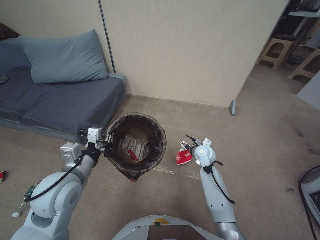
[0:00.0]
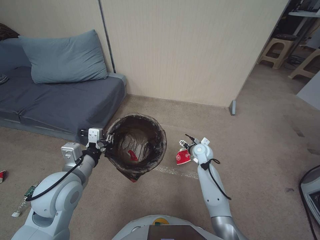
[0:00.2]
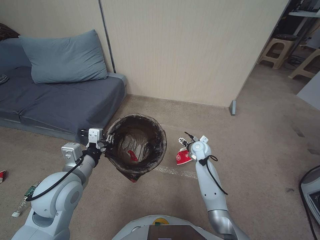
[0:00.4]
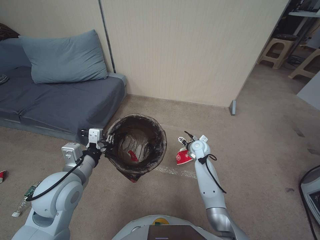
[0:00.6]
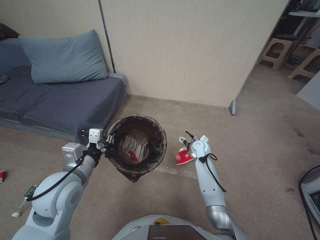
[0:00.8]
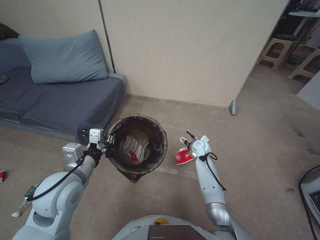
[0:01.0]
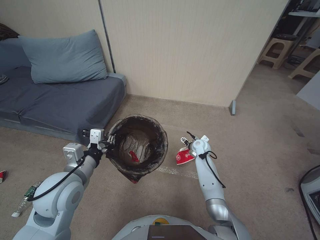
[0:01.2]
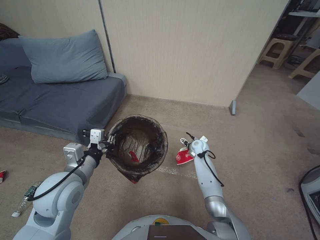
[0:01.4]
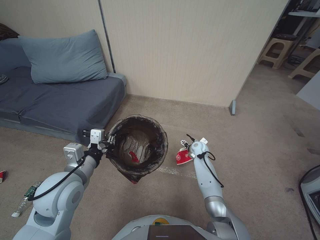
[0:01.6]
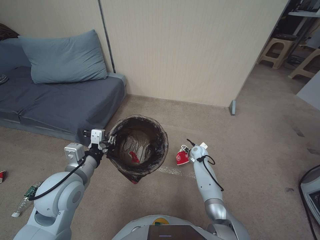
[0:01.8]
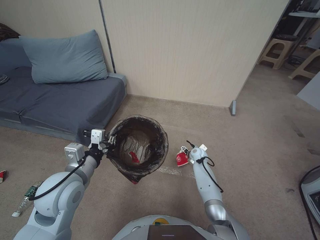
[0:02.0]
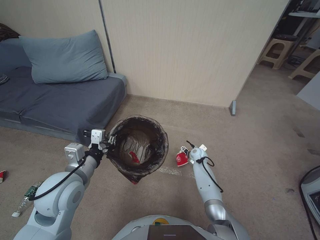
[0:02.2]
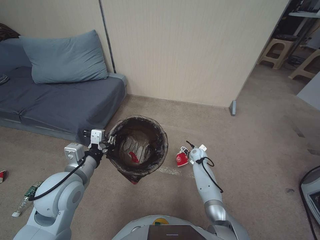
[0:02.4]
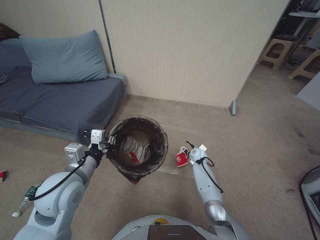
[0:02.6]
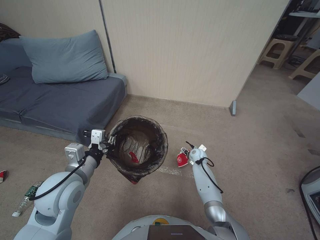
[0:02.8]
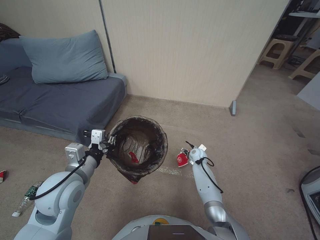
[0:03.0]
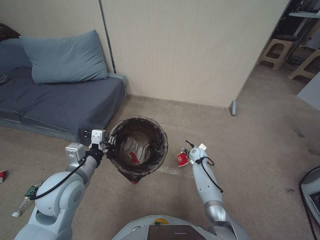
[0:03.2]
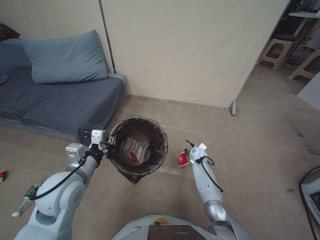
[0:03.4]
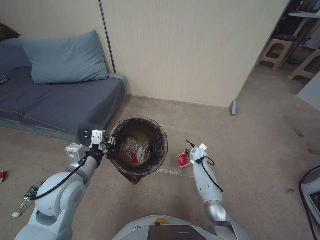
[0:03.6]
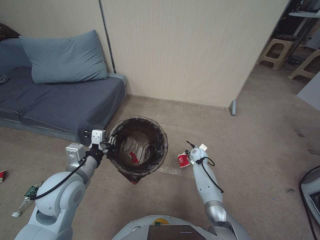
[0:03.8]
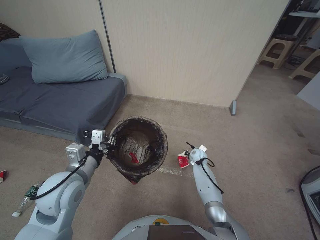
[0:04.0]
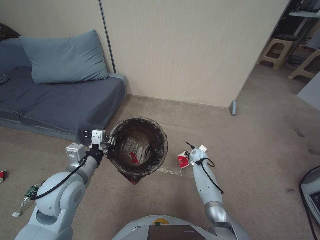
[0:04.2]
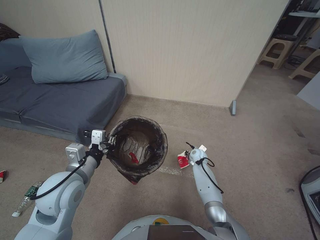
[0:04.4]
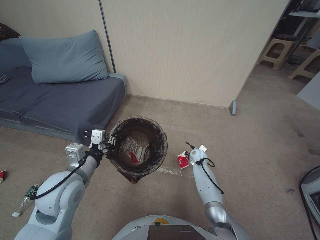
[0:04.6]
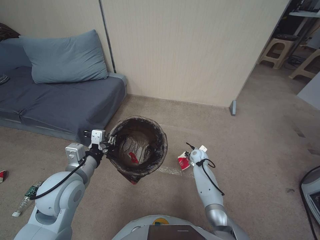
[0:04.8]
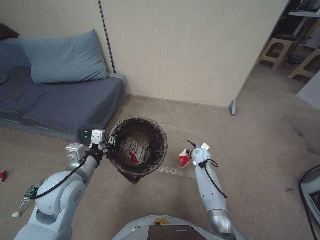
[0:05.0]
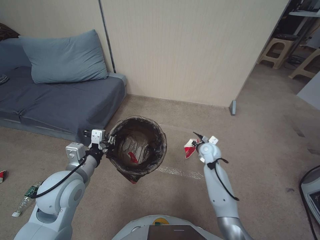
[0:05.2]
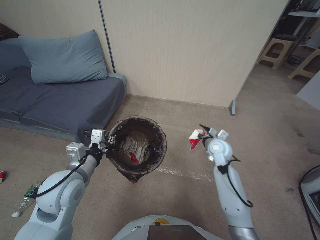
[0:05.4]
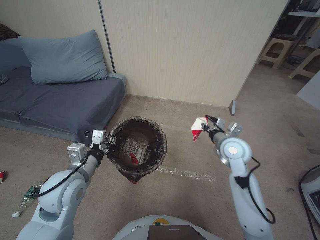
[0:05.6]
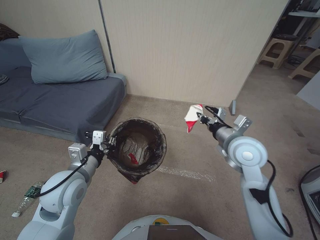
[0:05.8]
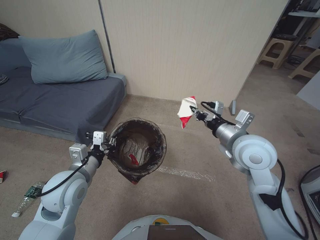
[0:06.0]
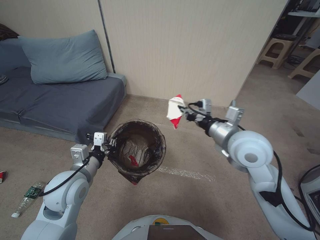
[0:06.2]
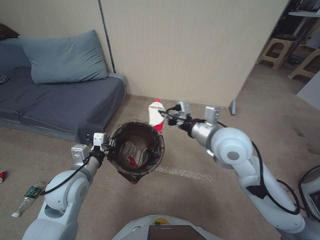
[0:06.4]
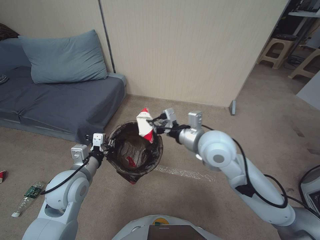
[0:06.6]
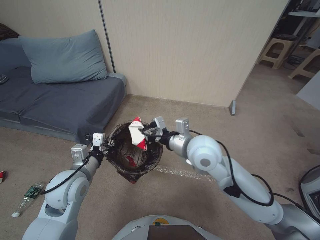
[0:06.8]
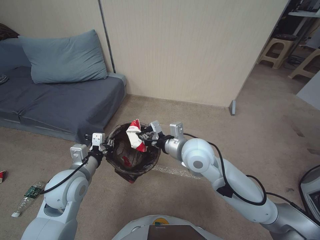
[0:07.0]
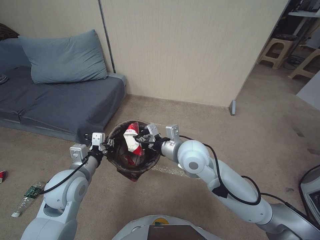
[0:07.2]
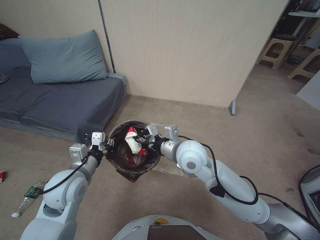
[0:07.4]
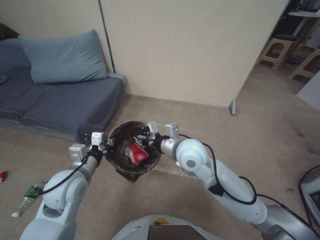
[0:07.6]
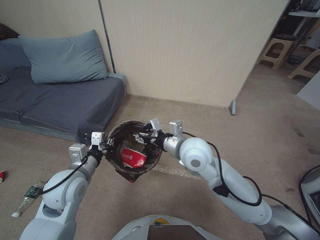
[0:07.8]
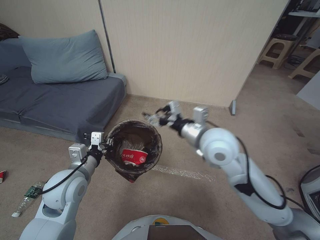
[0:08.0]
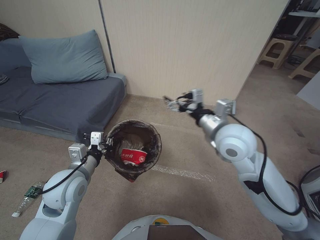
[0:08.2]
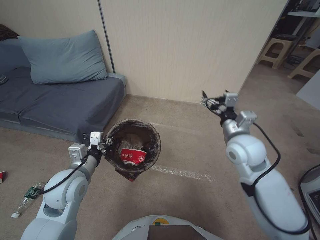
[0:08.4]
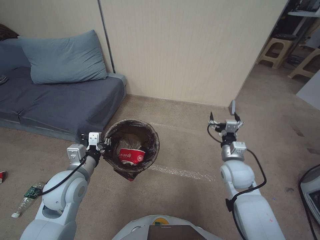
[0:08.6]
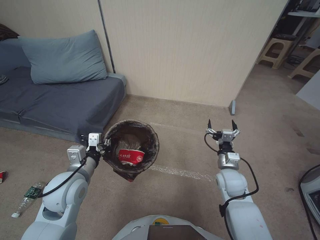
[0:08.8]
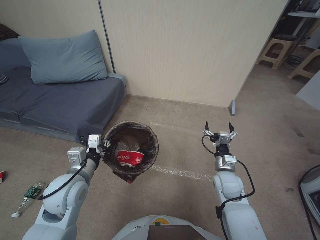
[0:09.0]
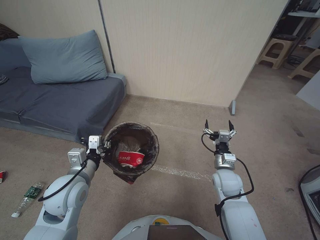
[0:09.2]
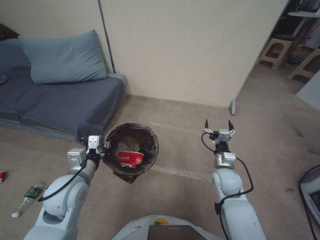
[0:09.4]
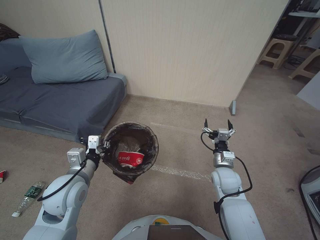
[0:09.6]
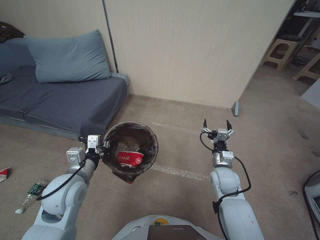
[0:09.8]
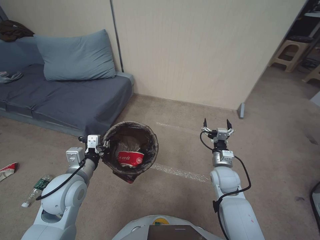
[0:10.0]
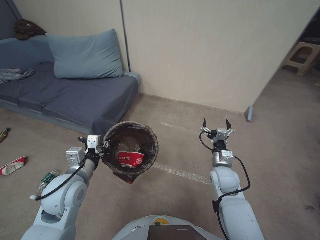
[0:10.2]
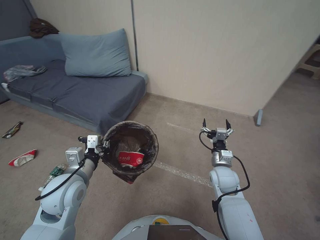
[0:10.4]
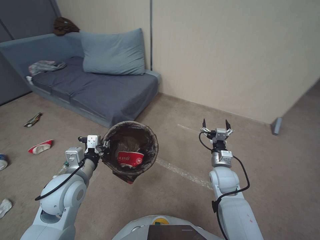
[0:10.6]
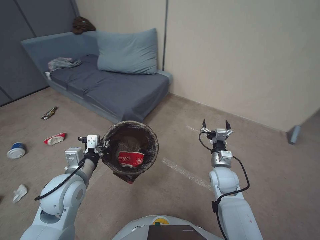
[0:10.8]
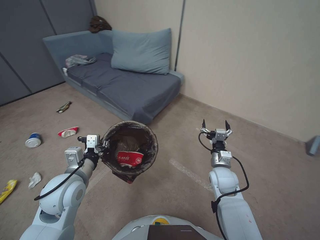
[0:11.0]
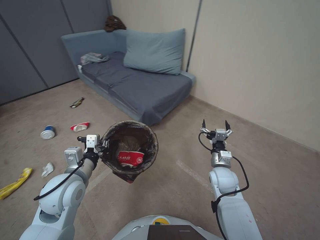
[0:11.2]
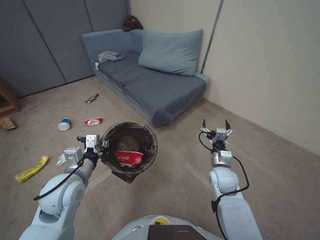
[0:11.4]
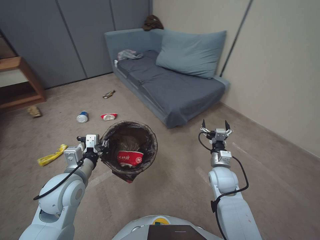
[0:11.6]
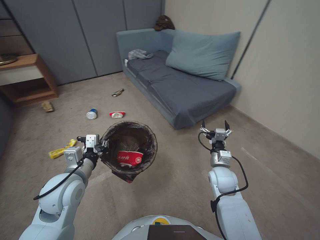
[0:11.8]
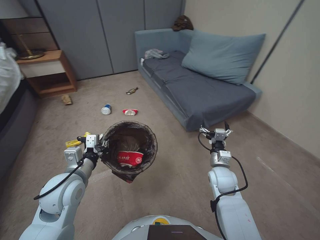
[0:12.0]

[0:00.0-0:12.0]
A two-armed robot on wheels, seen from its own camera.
Task of the whole recording: Pick up the trash bin, then pick up the garbage from the floor and place it into the trash bin.
0:00.0 to 0:01.6: The right gripper shifts roughly 10 cm forward and downward.
0:01.6 to 0:03.0: The right gripper changes place by some 5 cm.
0:04.4 to 0:06.0: The right gripper goes roughly 40 cm upward and backward.
0:06.0 to 0:07.6: The right gripper goes about 15 cm to the left.
0:07.6 to 0:09.0: The right gripper goes some 25 cm to the right and downward, and opens its fingers.

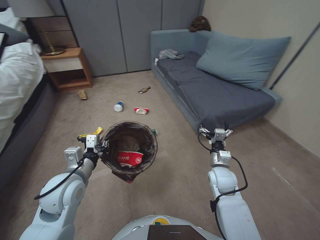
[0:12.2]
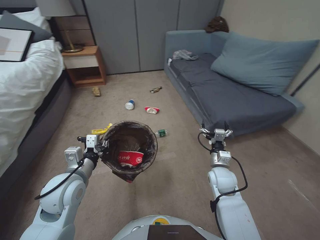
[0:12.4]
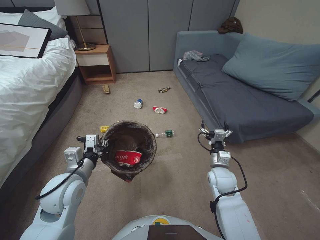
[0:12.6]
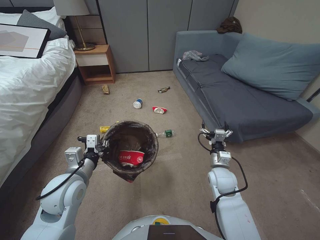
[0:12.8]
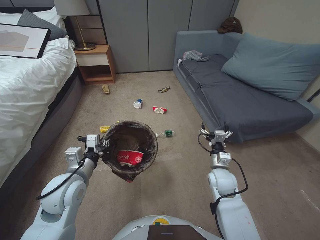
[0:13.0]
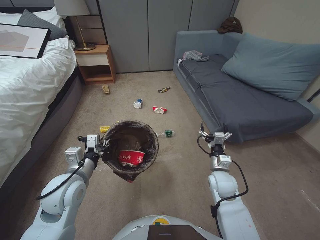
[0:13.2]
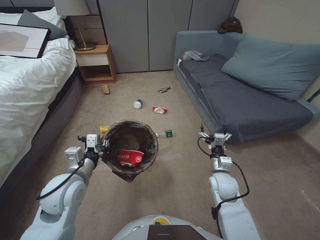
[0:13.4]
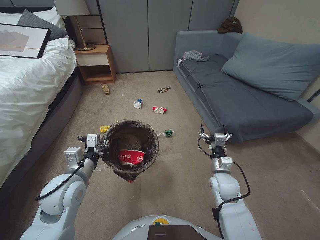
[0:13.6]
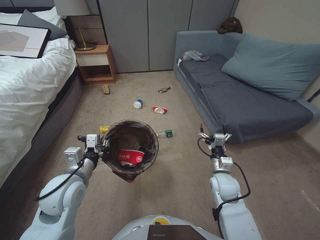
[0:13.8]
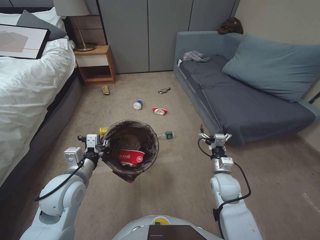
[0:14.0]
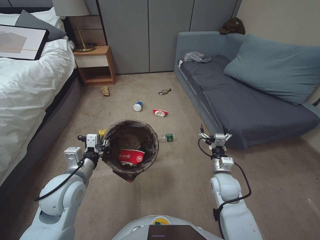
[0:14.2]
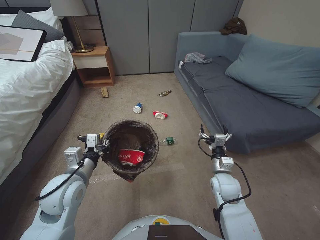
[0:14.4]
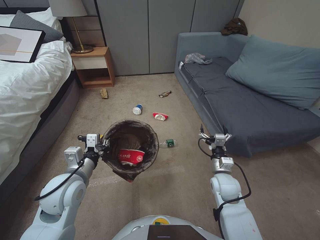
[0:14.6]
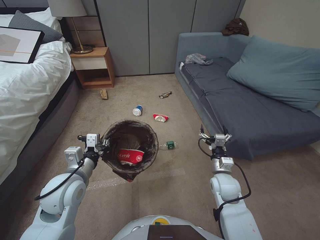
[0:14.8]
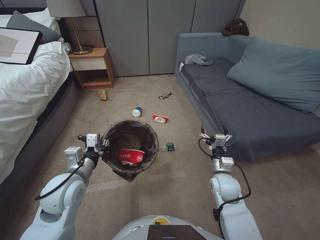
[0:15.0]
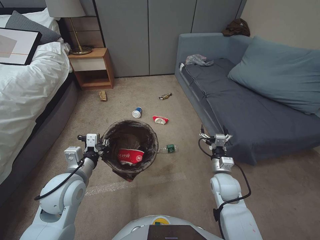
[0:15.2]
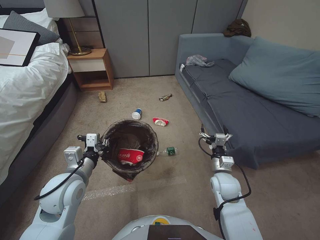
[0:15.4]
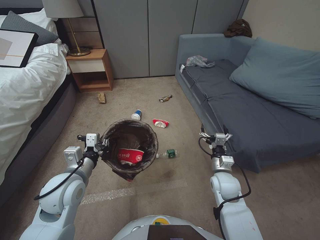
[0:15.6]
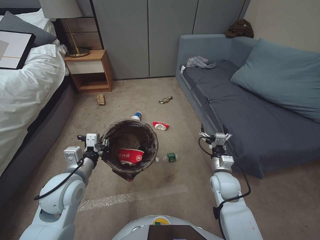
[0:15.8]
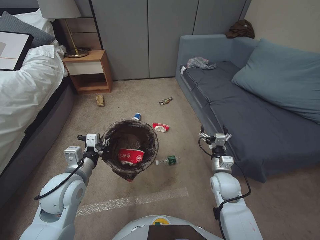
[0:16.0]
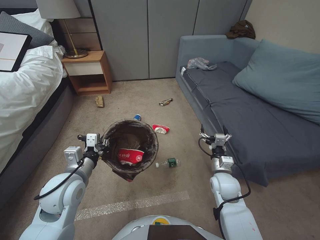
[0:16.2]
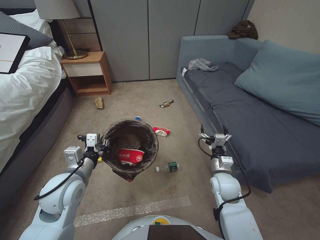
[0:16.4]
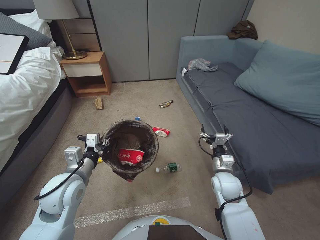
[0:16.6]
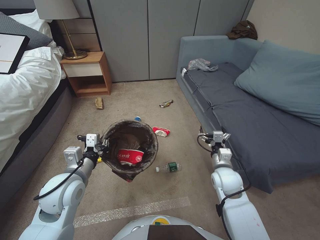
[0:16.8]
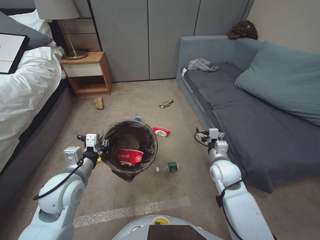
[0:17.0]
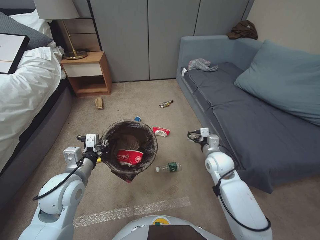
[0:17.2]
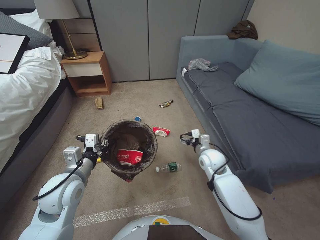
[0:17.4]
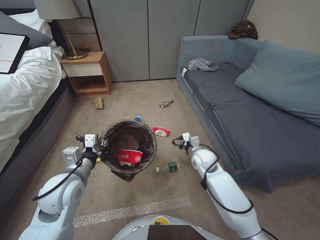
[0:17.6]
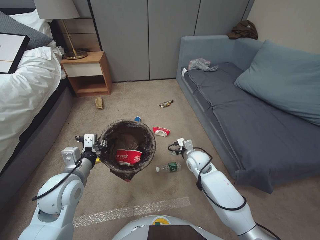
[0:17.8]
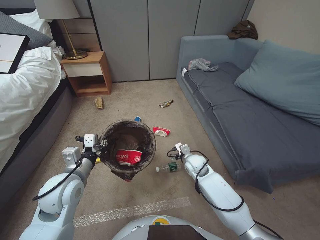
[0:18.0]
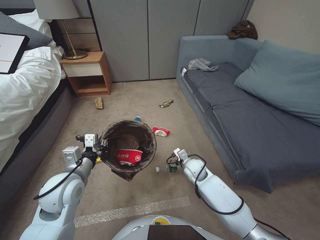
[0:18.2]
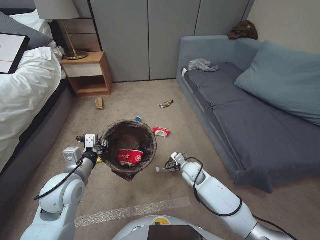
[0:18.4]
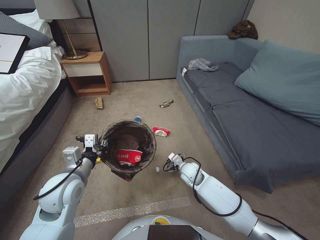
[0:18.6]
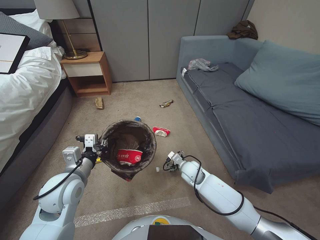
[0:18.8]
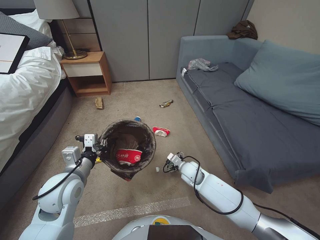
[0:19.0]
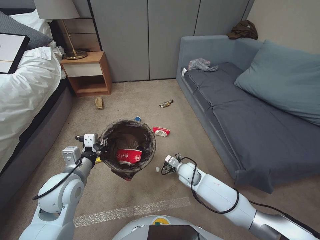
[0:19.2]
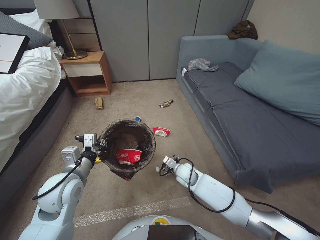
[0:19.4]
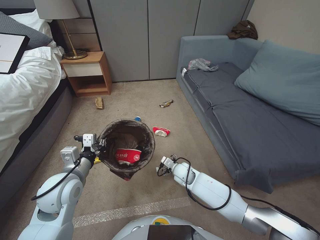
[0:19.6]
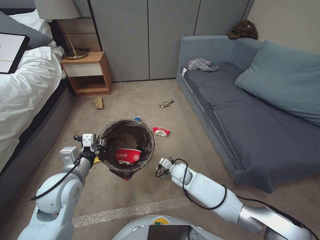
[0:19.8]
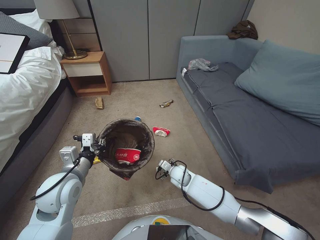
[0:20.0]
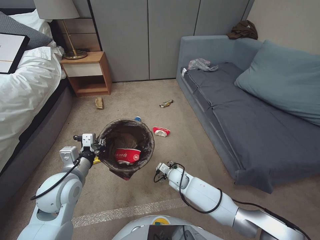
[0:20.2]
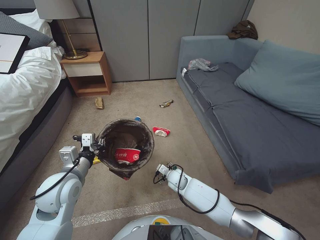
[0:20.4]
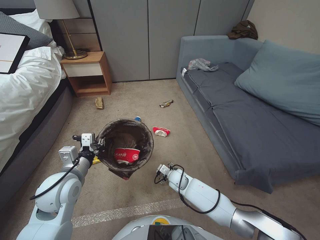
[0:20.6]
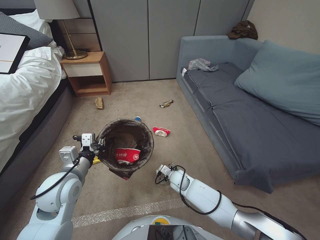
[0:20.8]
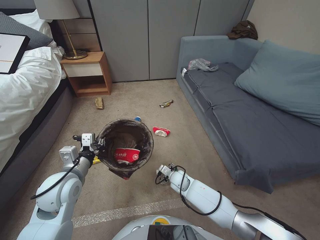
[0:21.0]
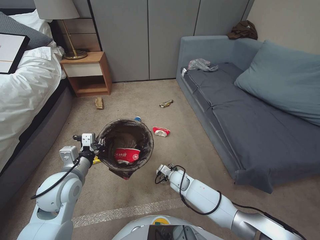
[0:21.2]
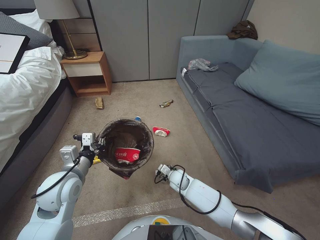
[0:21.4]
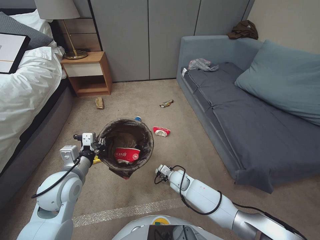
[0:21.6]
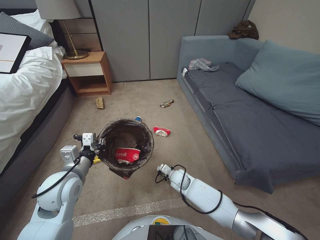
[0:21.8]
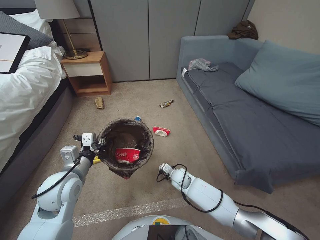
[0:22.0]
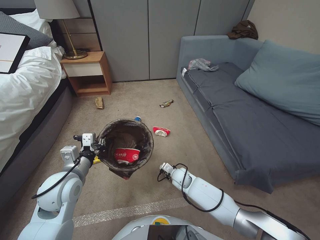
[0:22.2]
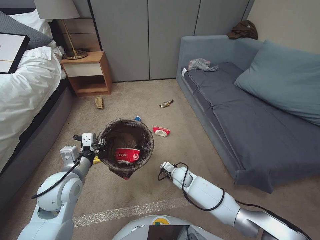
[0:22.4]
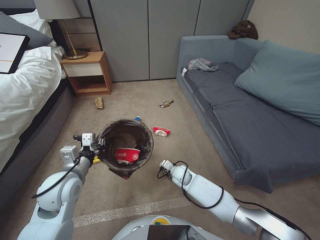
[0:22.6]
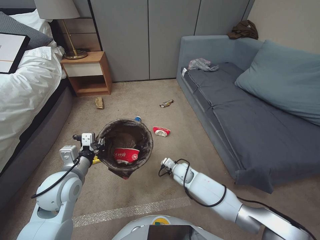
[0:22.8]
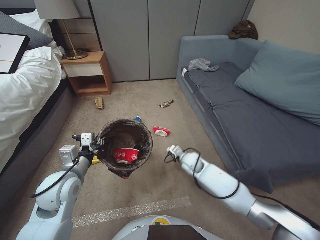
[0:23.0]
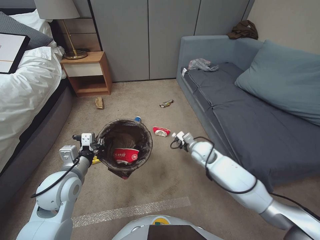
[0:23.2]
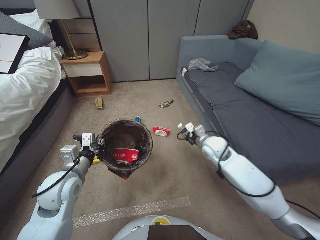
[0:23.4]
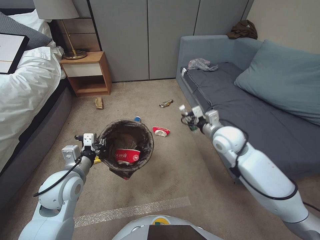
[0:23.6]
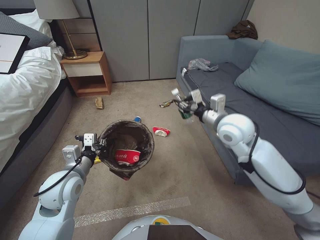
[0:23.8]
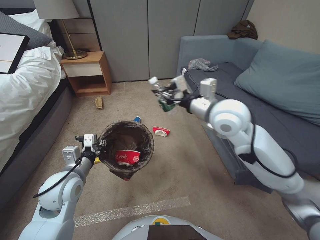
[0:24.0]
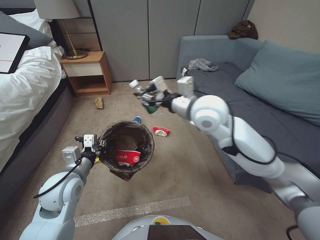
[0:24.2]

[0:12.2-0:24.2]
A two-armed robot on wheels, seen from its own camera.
Task of the whole recording: Pick up the trash bin, then pick up the garbage from the floor and place it into the trash bin.
0:13.8 to 0:15.2: The two grippers keep their place.
0:16.6 to 0:18.2: The right gripper is displaced forward, to the left and downward by approximately 15 cm.
0:18.2 to 0:19.8: The right gripper goes approximately 5 cm to the left.
0:19.8 to 0:21.2: The right gripper goes about 5 cm downward.
0:21.2 to 0:22.6: The right gripper closes.
0:22.6 to 0:24.2: The right gripper heads upward, covering roughly 40 cm.
